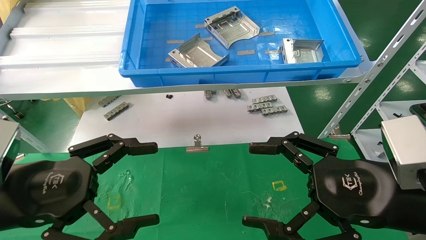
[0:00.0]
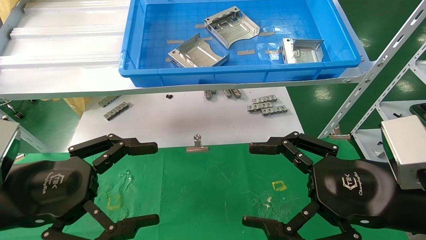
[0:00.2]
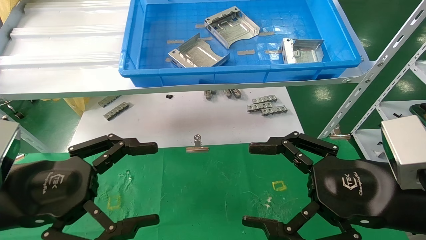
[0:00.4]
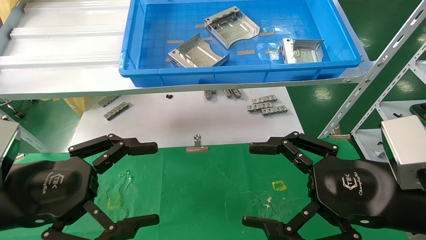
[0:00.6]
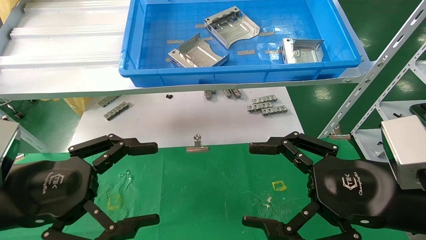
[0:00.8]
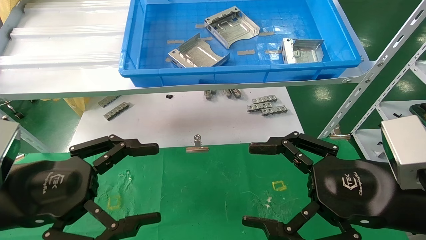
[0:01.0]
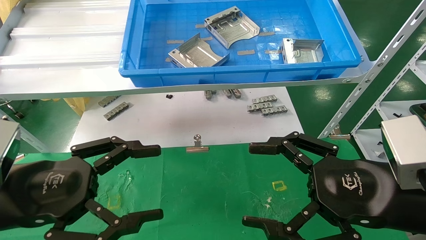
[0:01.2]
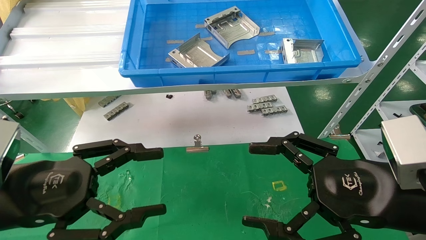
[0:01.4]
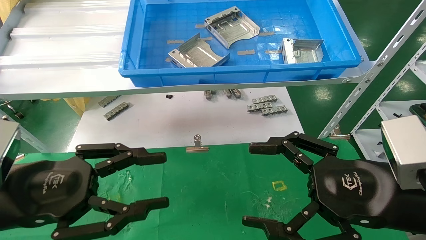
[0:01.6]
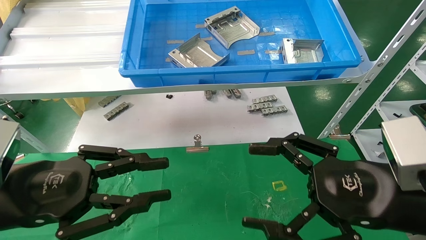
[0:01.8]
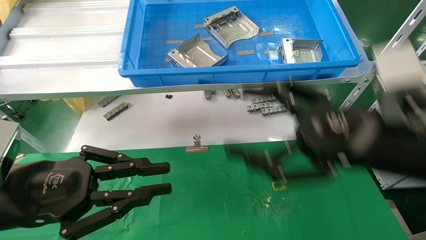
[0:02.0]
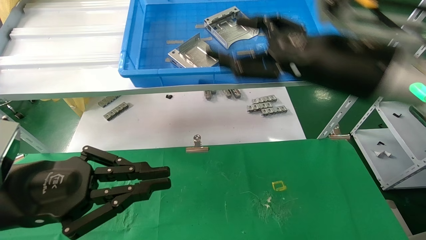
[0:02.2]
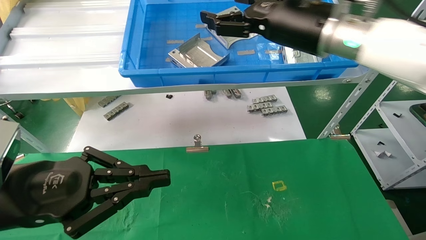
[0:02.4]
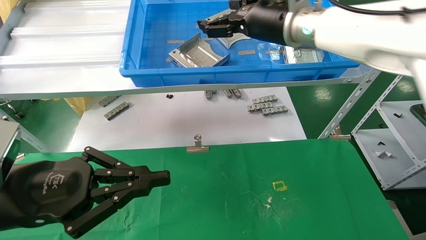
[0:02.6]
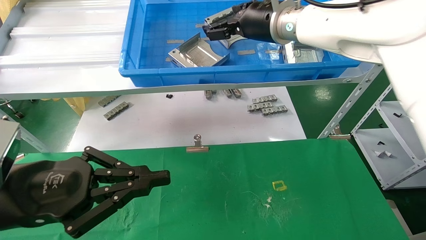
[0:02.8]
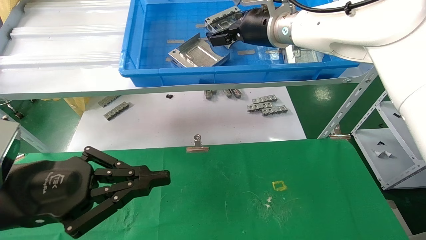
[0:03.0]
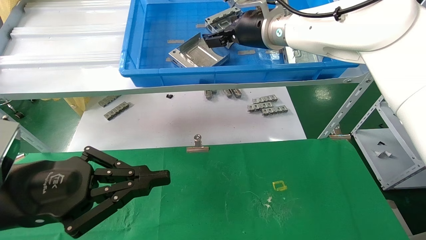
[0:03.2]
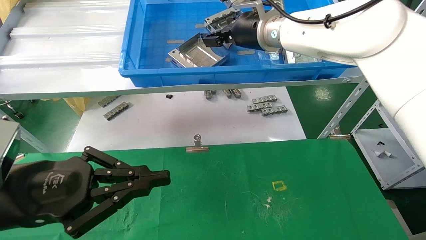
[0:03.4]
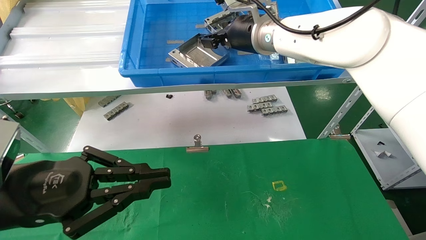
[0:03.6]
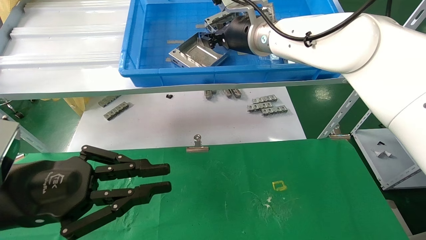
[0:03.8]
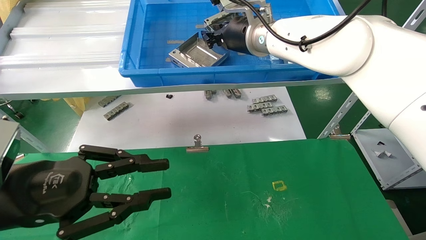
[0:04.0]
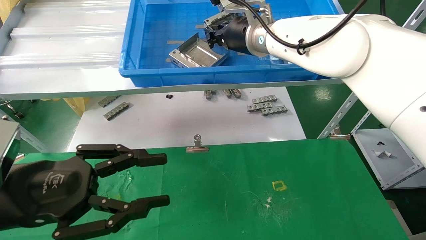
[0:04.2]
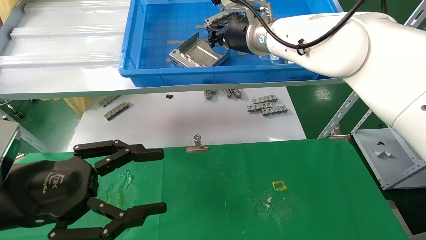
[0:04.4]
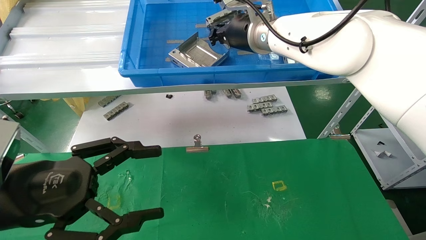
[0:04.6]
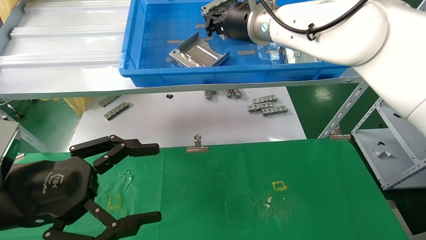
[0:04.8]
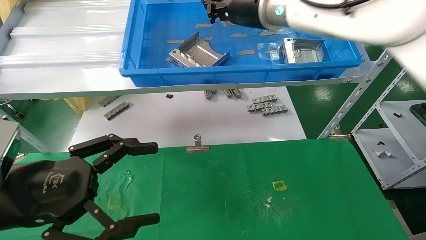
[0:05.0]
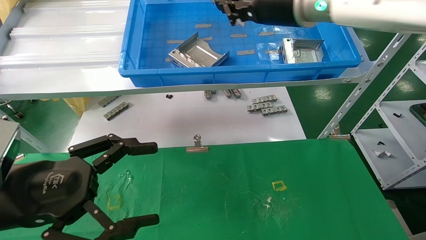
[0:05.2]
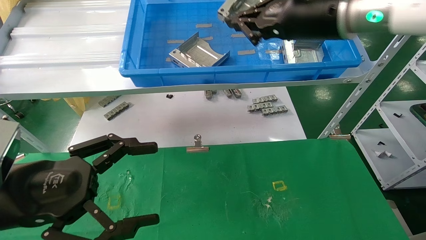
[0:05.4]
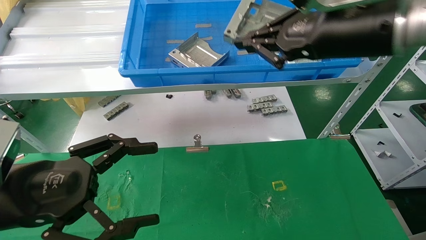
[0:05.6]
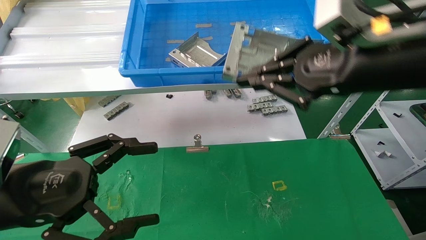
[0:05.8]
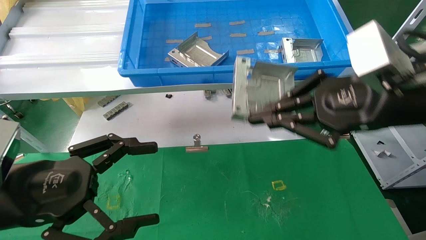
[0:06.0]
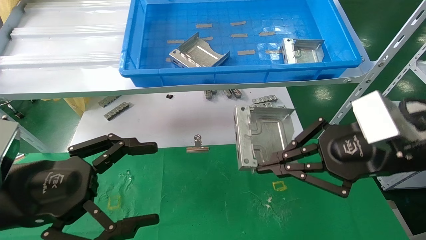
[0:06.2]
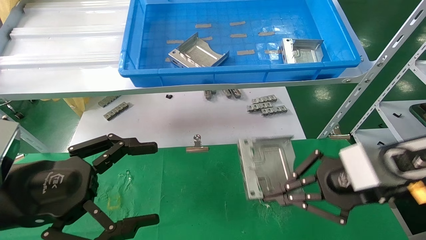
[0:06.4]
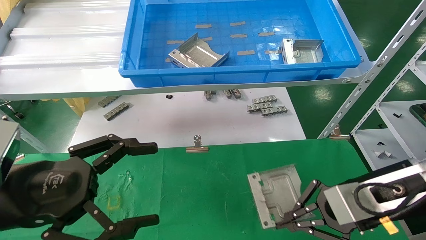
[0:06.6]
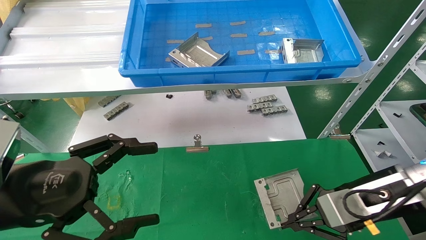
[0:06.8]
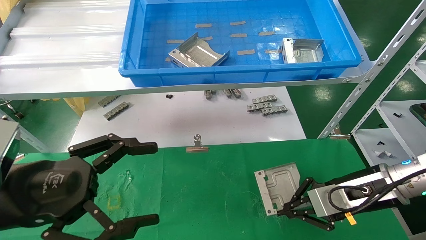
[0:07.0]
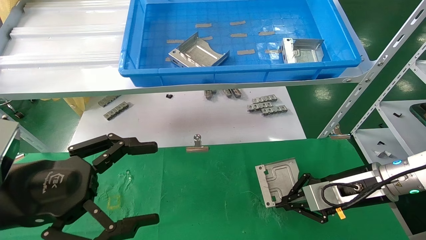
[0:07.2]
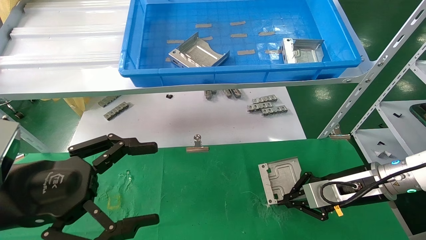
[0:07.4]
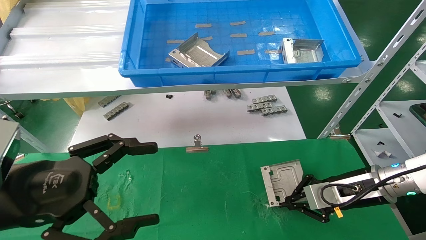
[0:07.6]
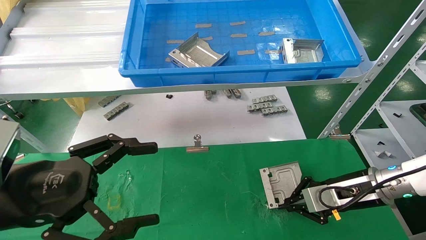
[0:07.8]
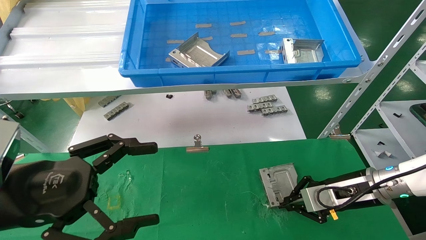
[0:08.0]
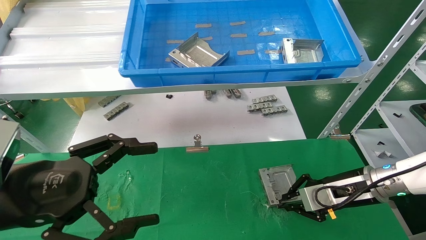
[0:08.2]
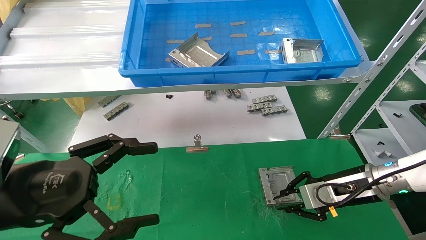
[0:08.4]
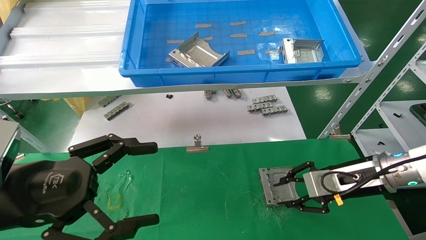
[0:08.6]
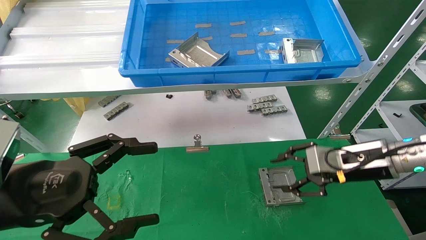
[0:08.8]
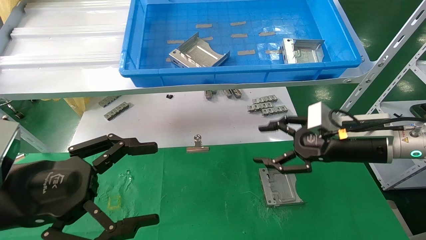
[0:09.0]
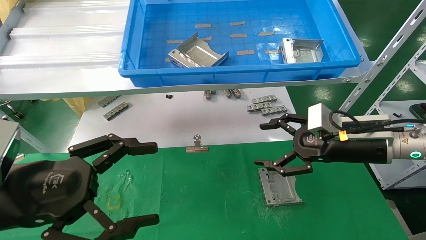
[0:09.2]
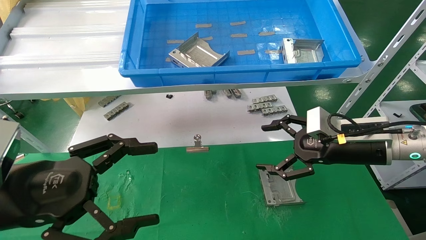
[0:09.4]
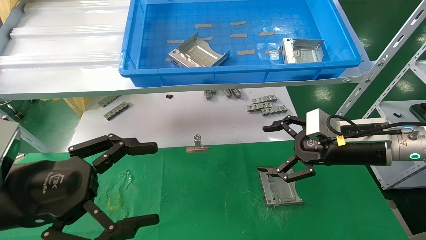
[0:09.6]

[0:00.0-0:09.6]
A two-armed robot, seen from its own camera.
Task of the whole recording: use the mechanical arm to pick up the parts and place them on the table.
Step, 0:02.2 to 0:05.2: Pick up the hard drive bracket from the feeding area.
Step, 0:05.4 to 0:09.2: Place the hard drive bracket into the box.
0:00.0 to 0:01.6: The left gripper closes.
0:01.6 to 0:03.2: The right gripper heads forward, upward and to the left, covering about 35 cm. Meanwhile the left gripper closes.
0:03.2 to 0:04.8: The left gripper opens up; the right gripper closes up.
0:04.8 to 0:06.4: The right gripper moves to the right, downward and backward, roughly 30 cm.
0:06.4 to 0:08.0: The right gripper is displaced downward and forward by roughly 15 cm.
0:08.0 to 0:09.6: The right gripper is displaced upward by approximately 10 cm, and opens up.

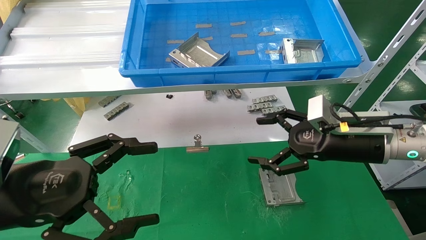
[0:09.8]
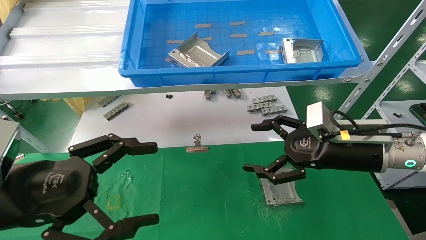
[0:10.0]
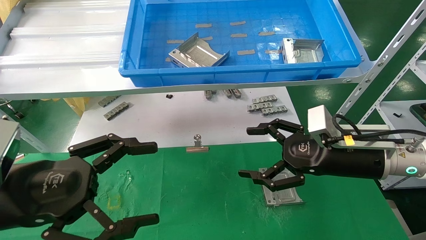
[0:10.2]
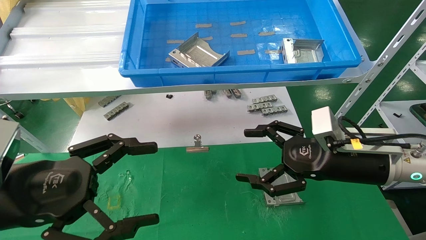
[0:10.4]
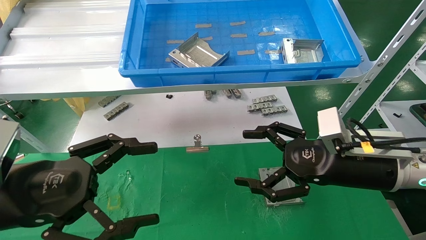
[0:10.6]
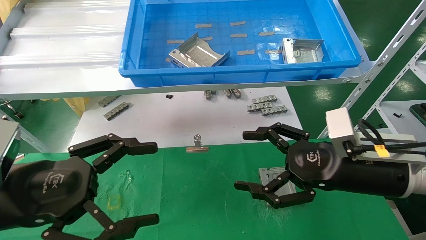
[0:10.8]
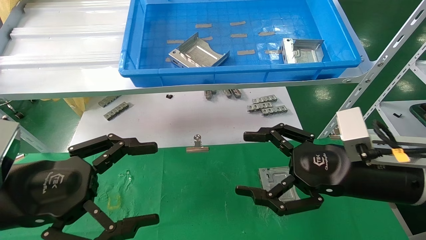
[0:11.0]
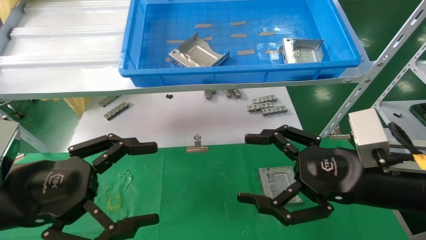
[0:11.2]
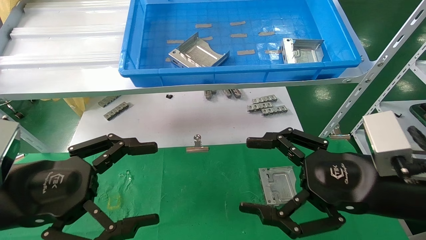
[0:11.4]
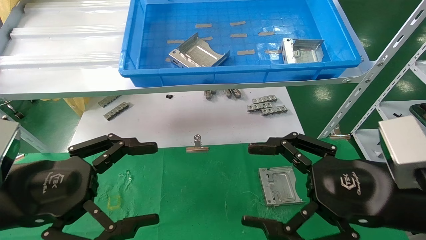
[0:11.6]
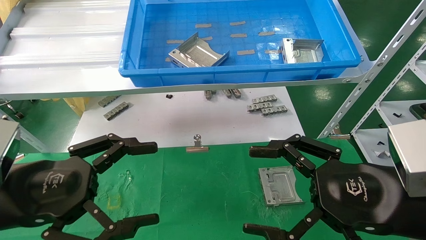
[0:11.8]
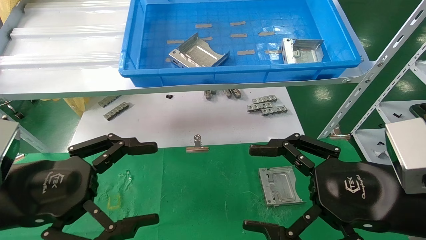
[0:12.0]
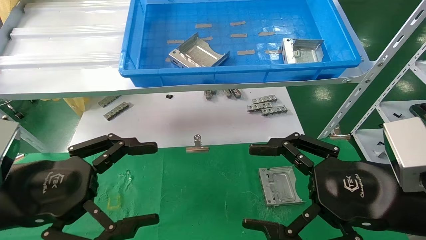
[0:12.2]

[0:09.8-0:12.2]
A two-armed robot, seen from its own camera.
Task of the whole recording: use the mechanical arm to pick up the parts and place them on the table.
0:09.8 to 0:11.0: The right gripper moves backward, roughly 10 cm.
0:11.0 to 0:12.2: The right gripper is displaced backward by some 5 cm.
